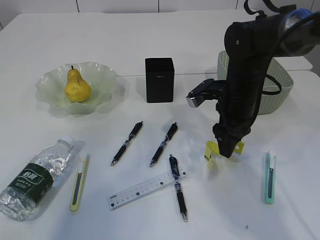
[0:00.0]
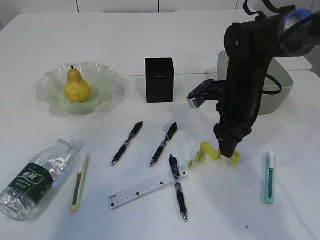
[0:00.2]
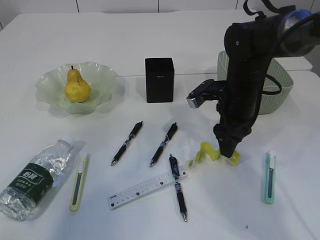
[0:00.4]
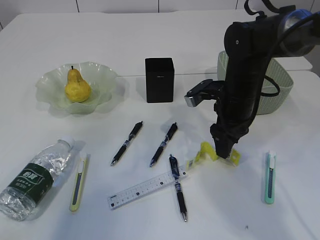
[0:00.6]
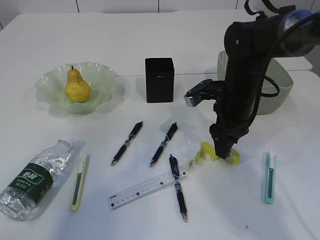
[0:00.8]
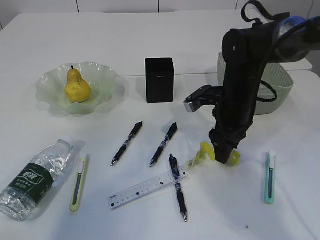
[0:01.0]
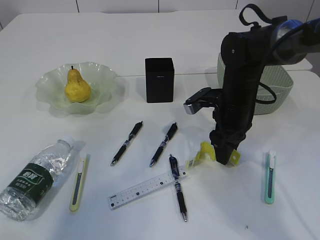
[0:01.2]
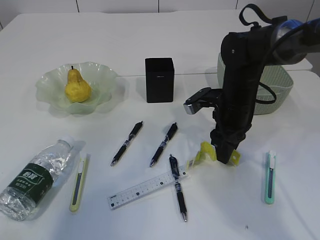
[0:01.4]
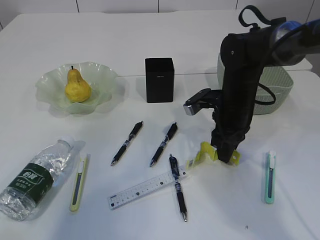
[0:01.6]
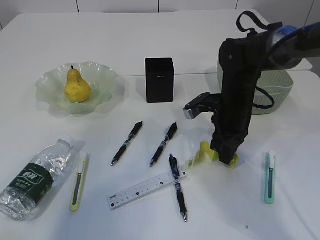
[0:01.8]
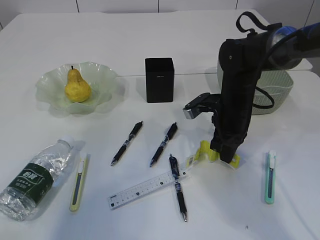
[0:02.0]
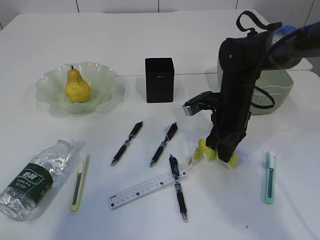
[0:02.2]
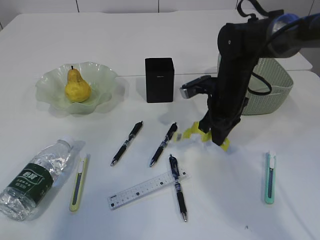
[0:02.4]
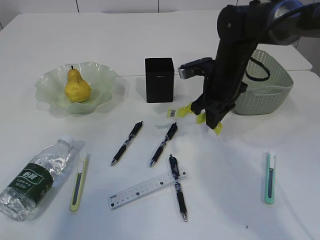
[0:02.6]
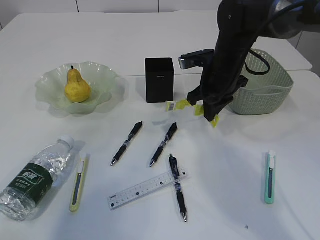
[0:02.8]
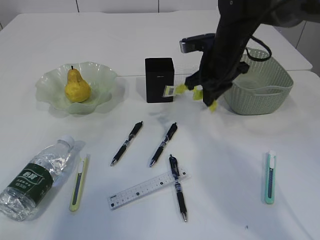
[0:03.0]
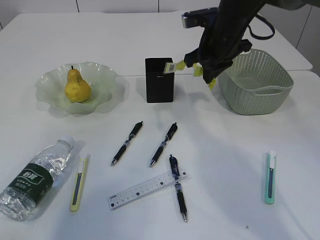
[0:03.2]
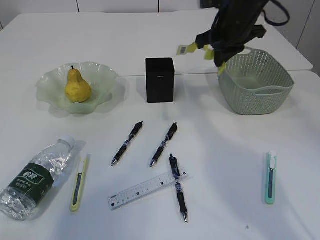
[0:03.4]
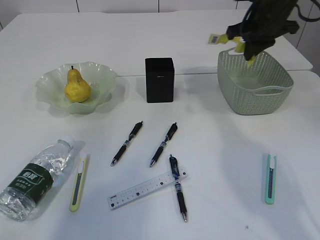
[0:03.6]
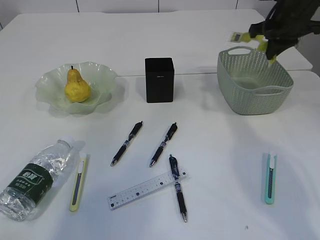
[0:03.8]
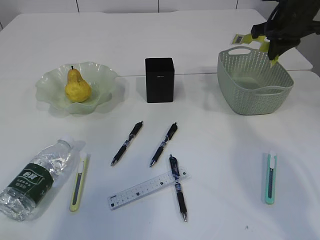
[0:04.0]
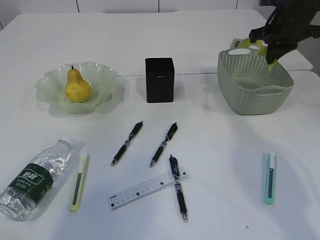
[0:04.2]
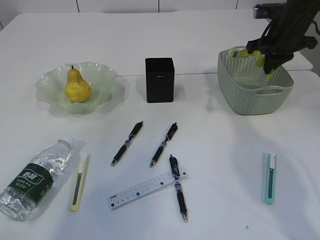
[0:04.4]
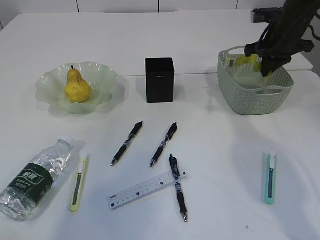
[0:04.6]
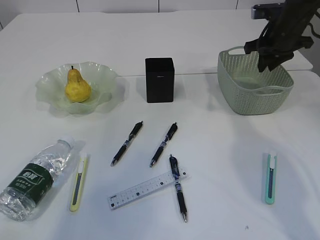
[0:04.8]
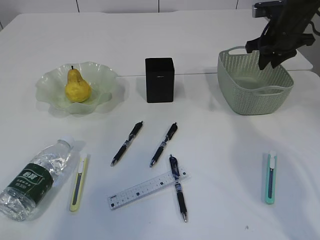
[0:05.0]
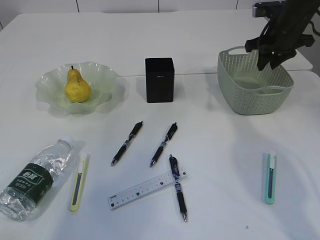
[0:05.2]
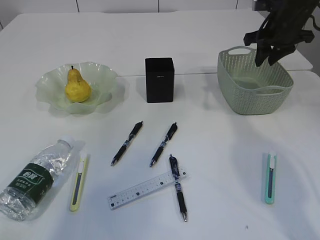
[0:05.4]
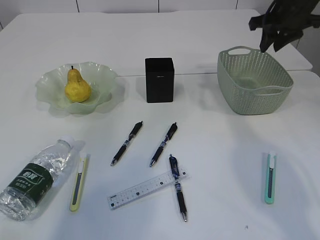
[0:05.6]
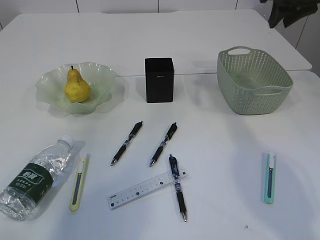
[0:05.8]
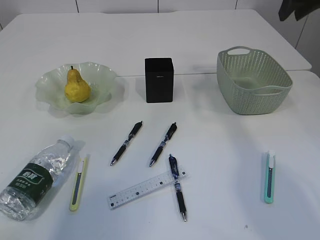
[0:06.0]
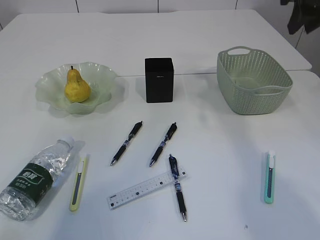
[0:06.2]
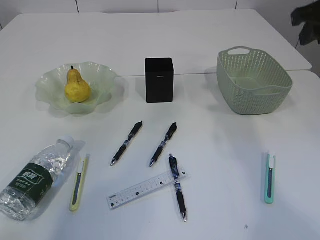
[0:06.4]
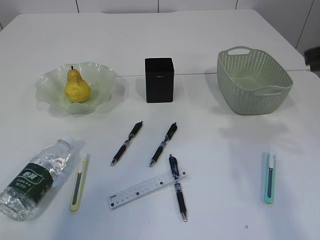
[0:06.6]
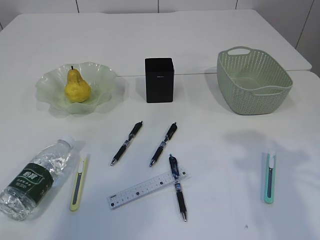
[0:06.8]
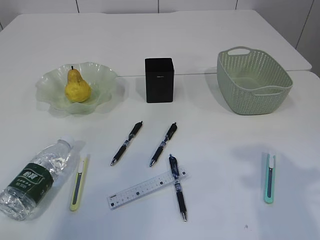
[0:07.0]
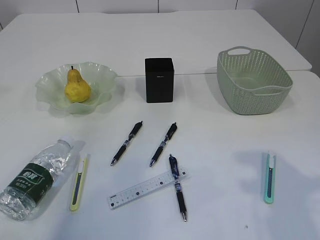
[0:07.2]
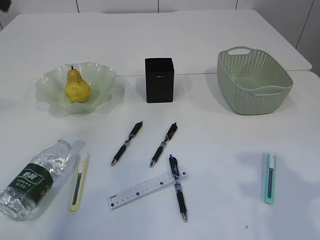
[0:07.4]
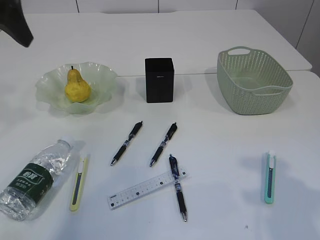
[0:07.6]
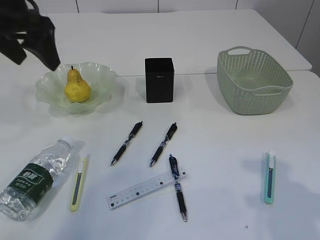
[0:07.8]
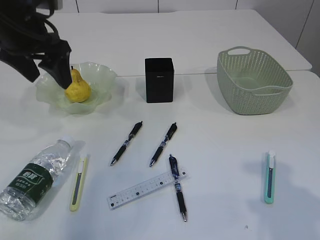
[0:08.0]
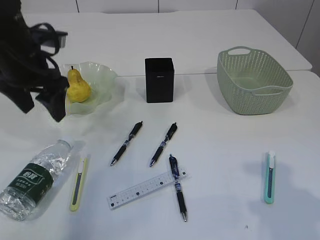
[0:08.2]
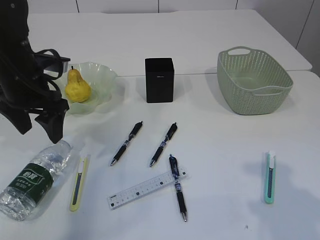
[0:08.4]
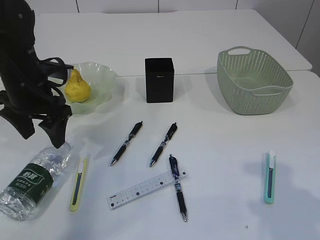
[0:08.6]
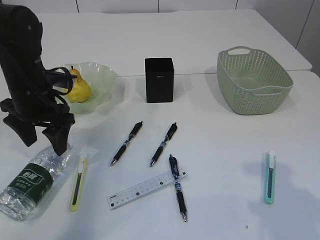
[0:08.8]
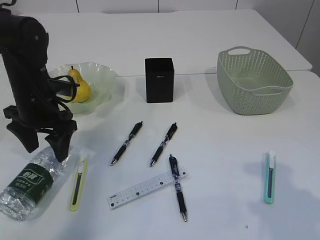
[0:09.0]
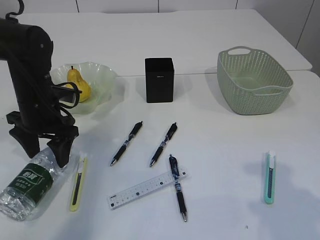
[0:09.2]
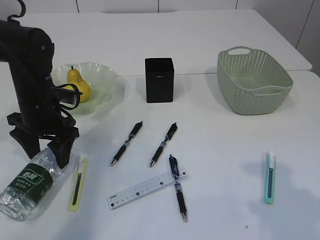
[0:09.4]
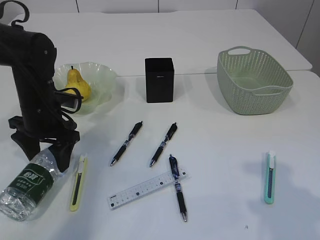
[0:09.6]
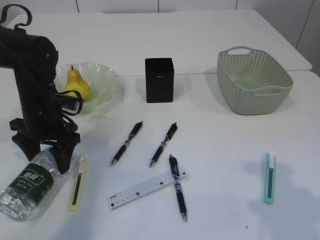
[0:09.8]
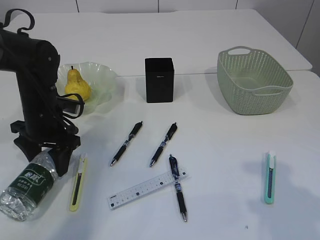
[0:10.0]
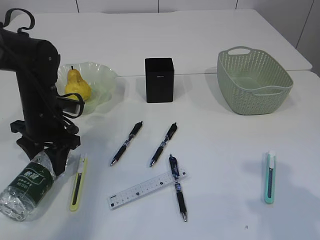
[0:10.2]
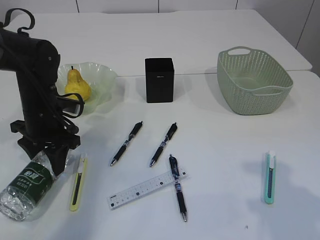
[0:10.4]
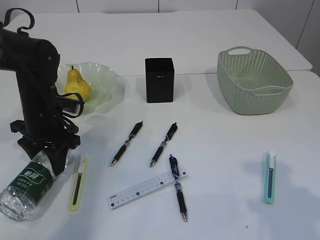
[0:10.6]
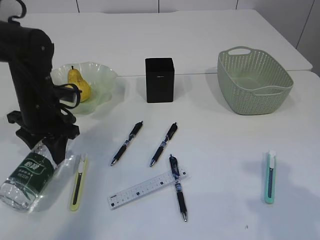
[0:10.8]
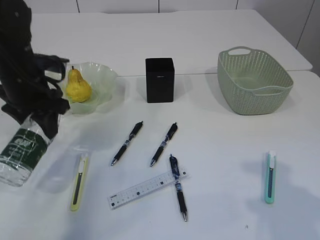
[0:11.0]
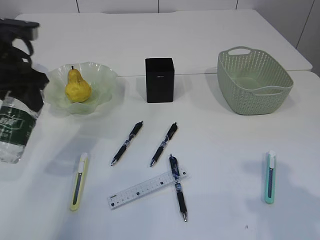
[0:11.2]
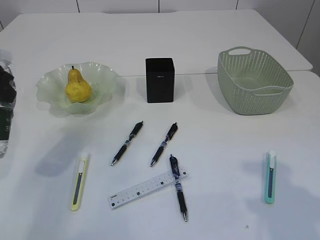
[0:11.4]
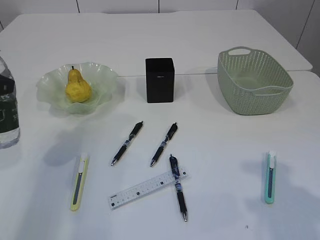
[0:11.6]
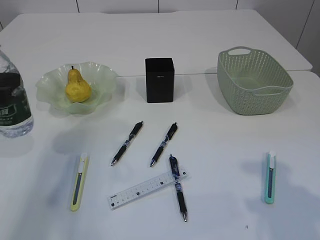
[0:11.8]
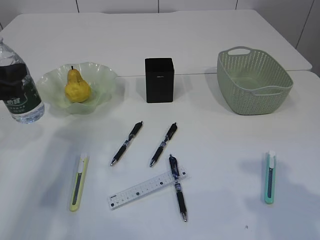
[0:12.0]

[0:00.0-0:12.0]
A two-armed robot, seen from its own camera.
Step, 0:00.0 to 0:02.6: Pick up the plastic.
Step, 0:02.8 to 0:05.6: Place the plastic in the basket.
Step, 0:05.8 to 0:10.8: Pick up the bottle with the left arm.
0:00.0 to 0:01.6: The right gripper closes its fingers.
0:01.6 to 0:03.0: The right gripper travels upward by approximately 5 cm, and closes up.
0:03.0 to 0:04.4: The right gripper goes roughly 15 cm to the right.
0:04.4 to 0:06.0: The right gripper goes about 15 cm upward and backward, and opens its fingers.
0:06.0 to 0:07.6: The right gripper shifts some 25 cm backward; the left gripper goes roughly 15 cm downward.
0:07.6 to 0:09.0: The left gripper moves downward, about 20 cm.
0:09.0 to 0:10.4: The left gripper closes its fingers.
0:10.4 to 0:12.0: The left gripper moves backward, upward and to the left, about 15 cm.

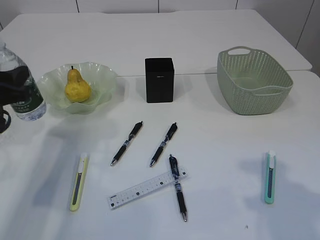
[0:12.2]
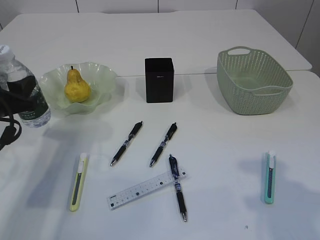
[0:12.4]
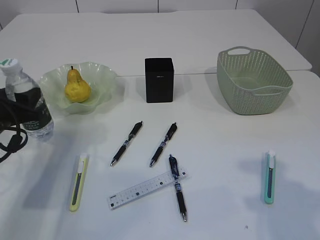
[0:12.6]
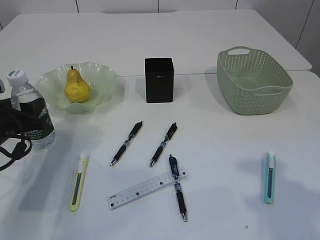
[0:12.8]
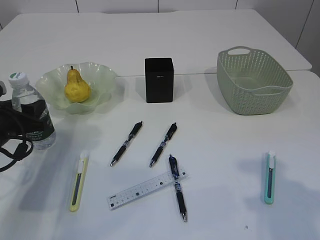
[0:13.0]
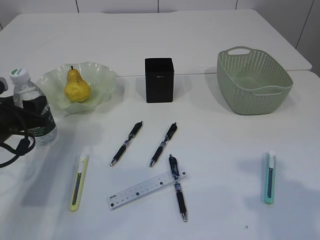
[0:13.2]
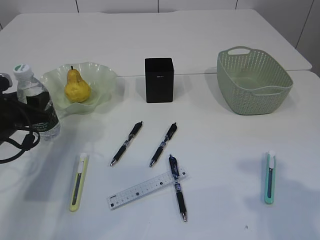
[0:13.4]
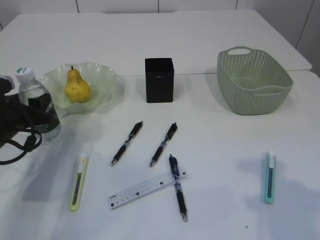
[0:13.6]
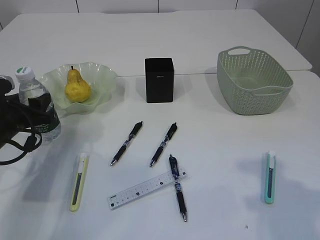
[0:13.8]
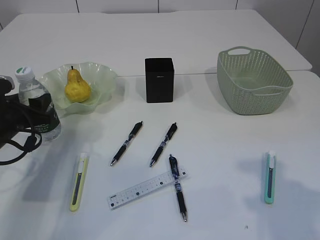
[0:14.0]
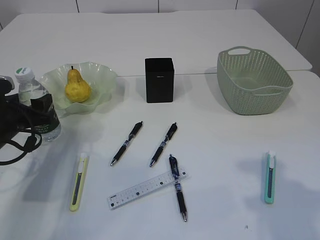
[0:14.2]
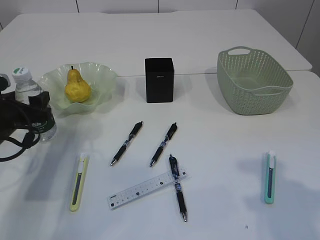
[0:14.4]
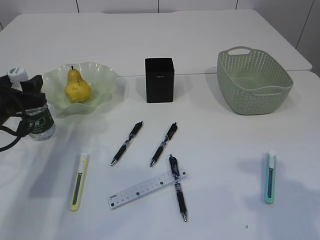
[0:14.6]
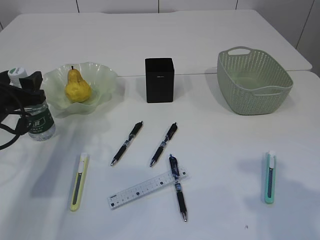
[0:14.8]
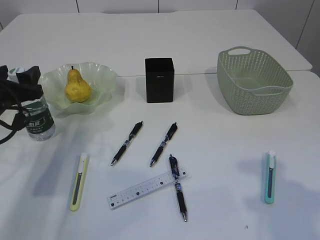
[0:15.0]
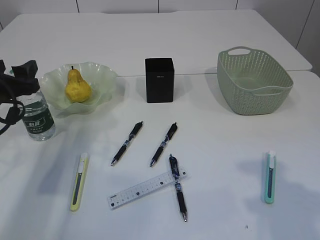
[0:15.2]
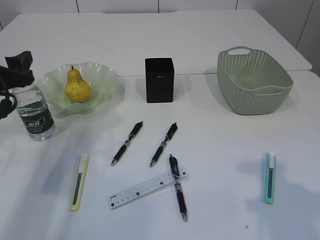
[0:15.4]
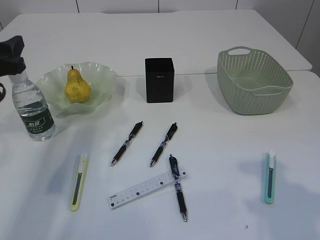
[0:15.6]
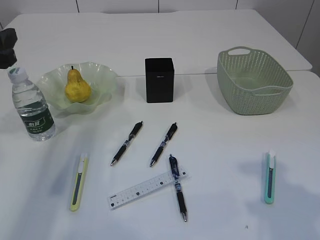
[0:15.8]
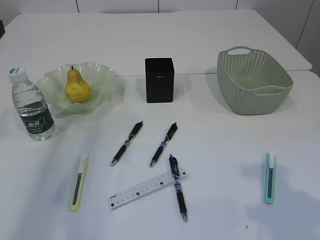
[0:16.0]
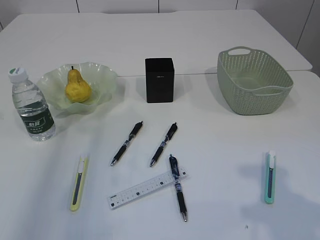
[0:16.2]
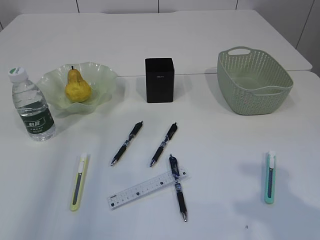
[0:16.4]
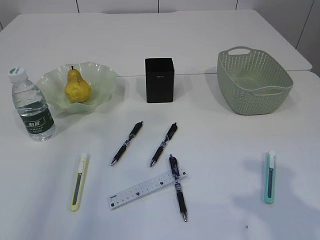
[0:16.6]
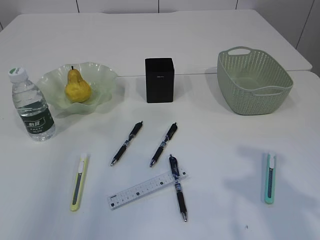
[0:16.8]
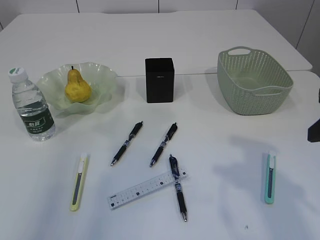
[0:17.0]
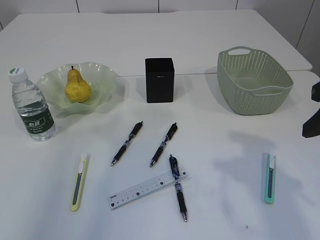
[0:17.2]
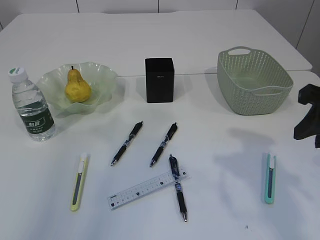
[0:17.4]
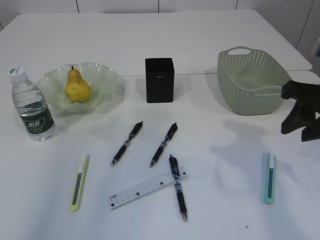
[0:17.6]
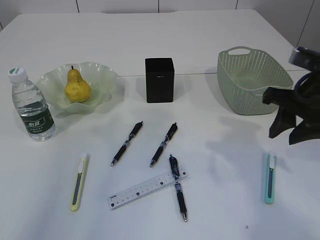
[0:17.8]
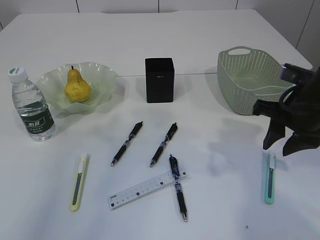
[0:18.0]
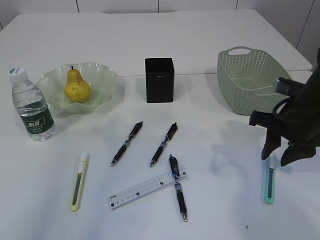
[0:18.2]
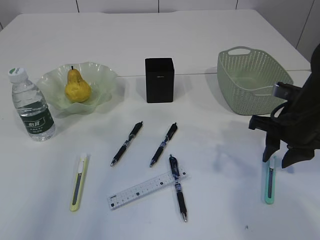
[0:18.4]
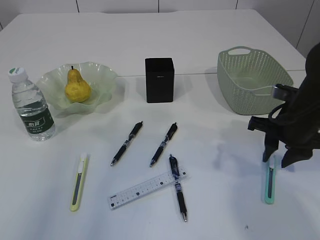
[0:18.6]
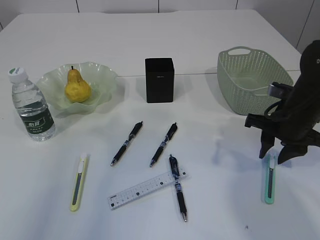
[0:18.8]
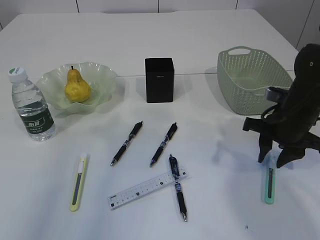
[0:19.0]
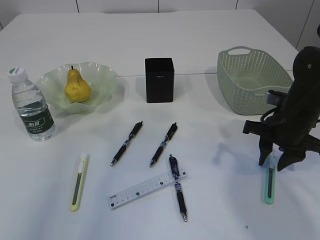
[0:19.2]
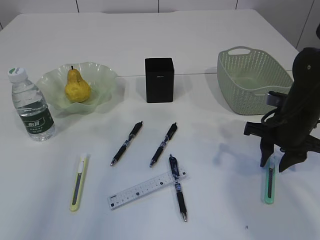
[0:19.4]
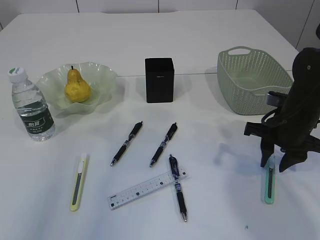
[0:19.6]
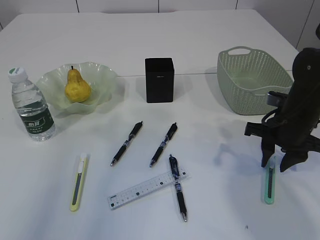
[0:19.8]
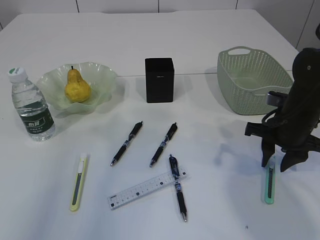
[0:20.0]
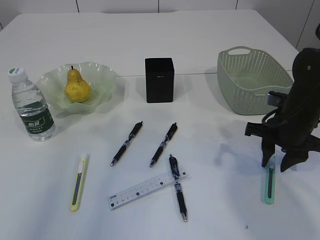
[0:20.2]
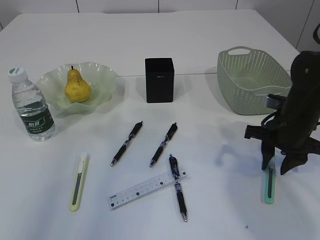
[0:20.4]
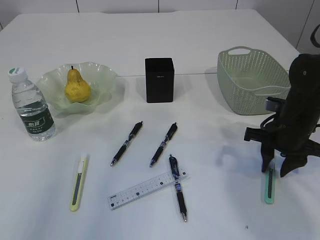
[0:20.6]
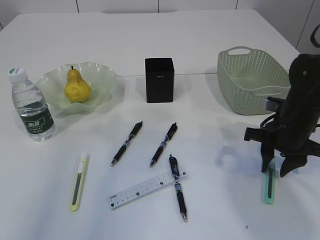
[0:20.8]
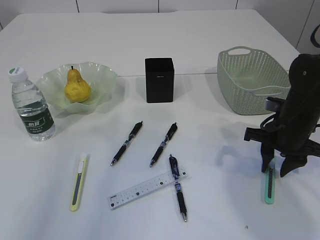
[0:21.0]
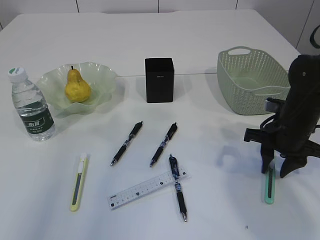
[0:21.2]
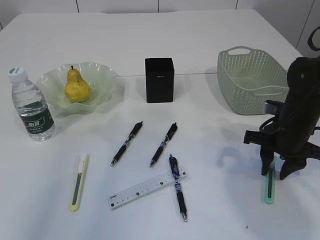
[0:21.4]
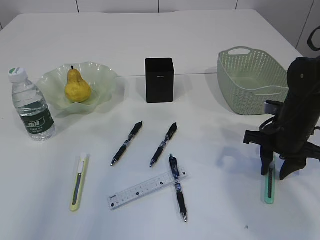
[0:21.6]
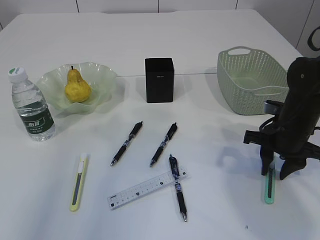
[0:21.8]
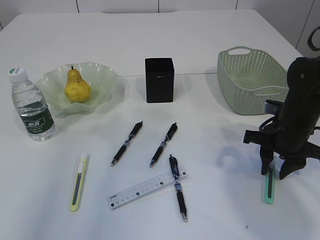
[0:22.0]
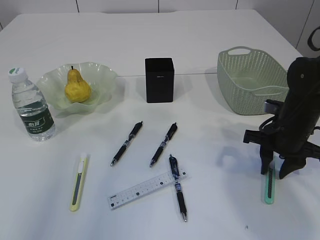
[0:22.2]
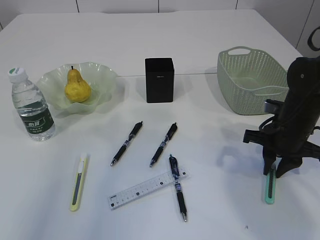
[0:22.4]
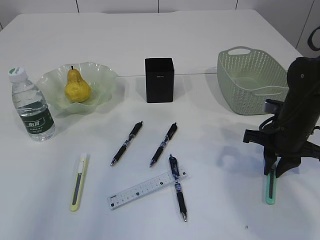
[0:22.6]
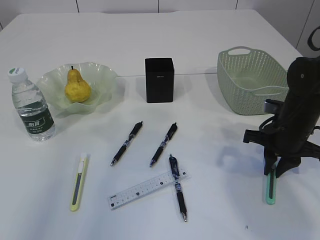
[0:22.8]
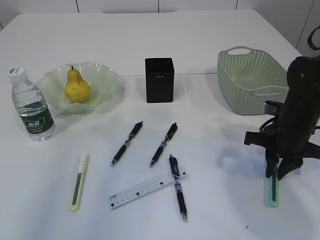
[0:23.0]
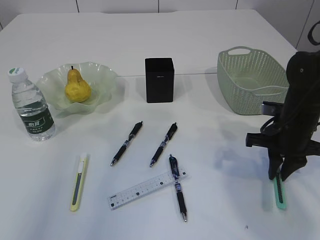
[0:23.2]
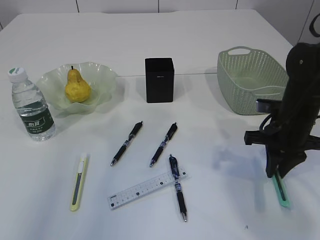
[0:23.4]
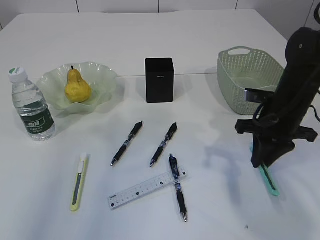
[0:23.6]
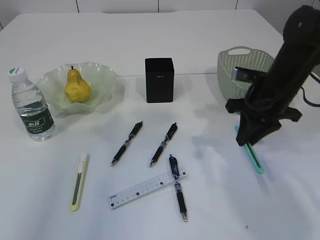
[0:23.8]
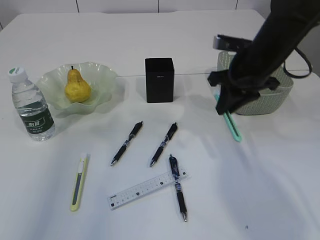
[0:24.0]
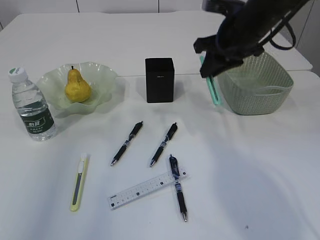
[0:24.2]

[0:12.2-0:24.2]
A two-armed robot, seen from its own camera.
Step, 0:12.2 to 0:15.8: Place the bottle.
Step, 0:16.0 to 0:23.8: pick up the blue knife.
0:12.2 to 0:13.8: The left gripper heads downward, covering approximately 10 cm.
0:13.8 to 0:15.2: The left gripper goes approximately 5 cm upward.
0:15.2 to 0:16.6: The left gripper heads upward and backward, covering approximately 25 cm.
0:16.6 to 0:18.2: The right gripper goes roughly 20 cm forward and downward.
0:18.2 to 0:19.8: The right gripper shifts by approximately 5 cm.
0:19.8 to 0:21.2: Both grippers stay put.
0:21.2 to 0:22.6: Neither gripper changes place.
0:22.6 to 0:24.2: The right gripper heads upward, forward and to the left, covering some 20 cm.
